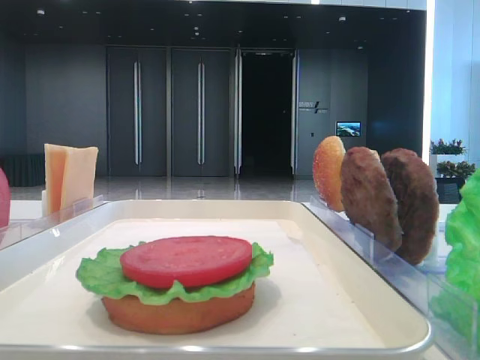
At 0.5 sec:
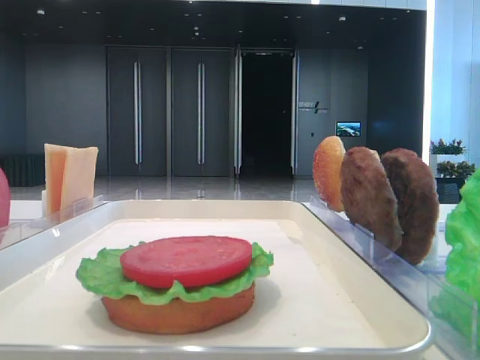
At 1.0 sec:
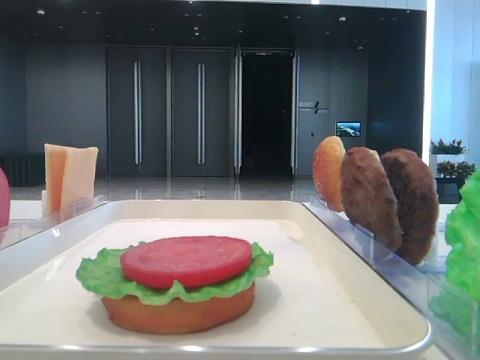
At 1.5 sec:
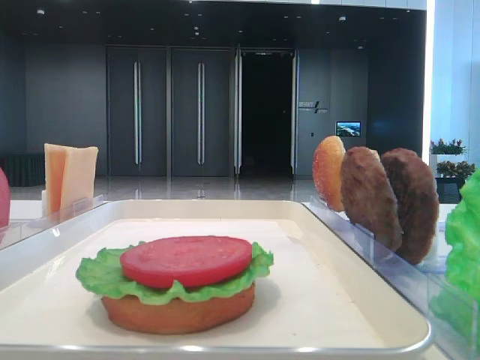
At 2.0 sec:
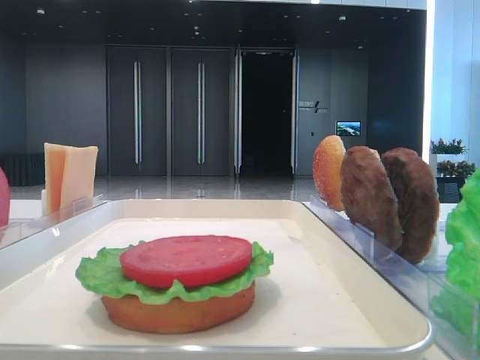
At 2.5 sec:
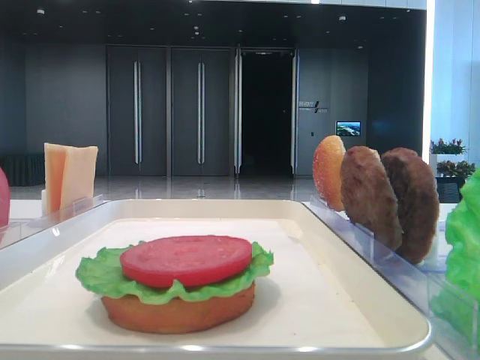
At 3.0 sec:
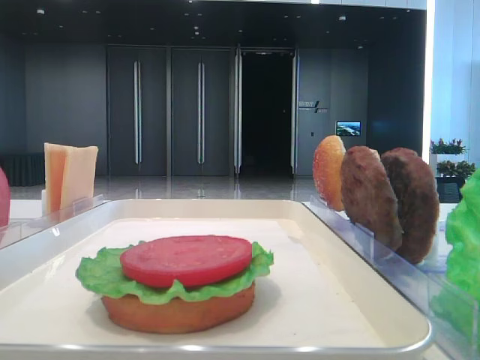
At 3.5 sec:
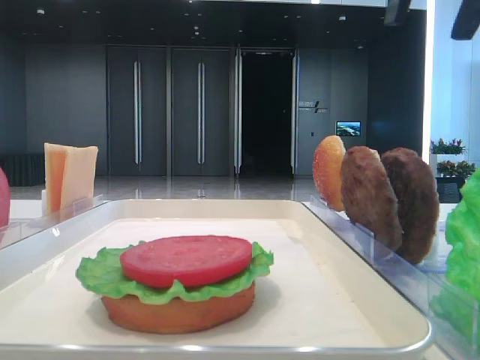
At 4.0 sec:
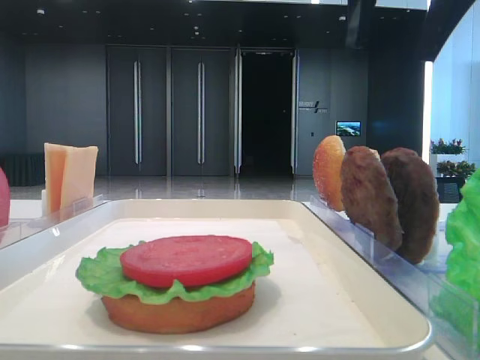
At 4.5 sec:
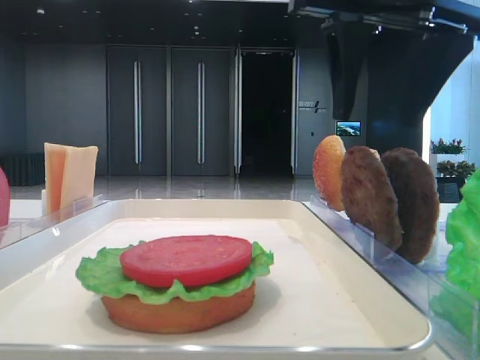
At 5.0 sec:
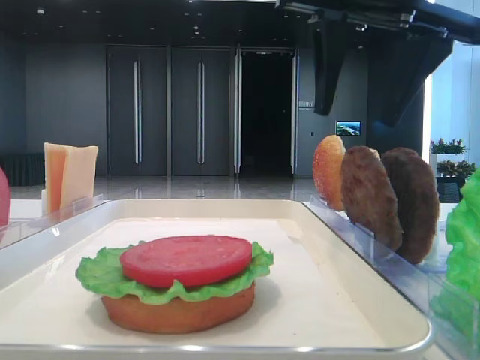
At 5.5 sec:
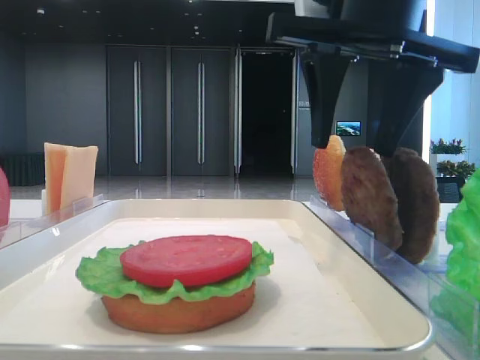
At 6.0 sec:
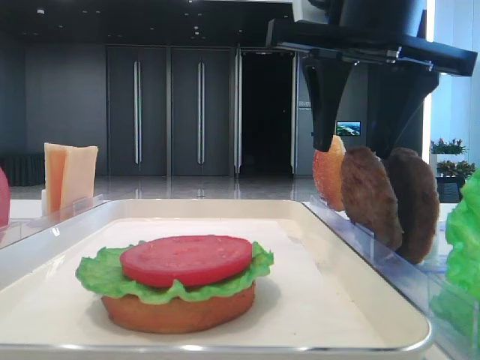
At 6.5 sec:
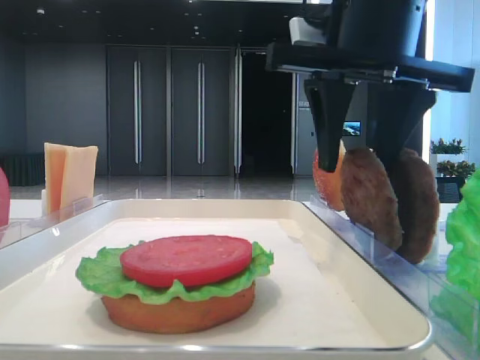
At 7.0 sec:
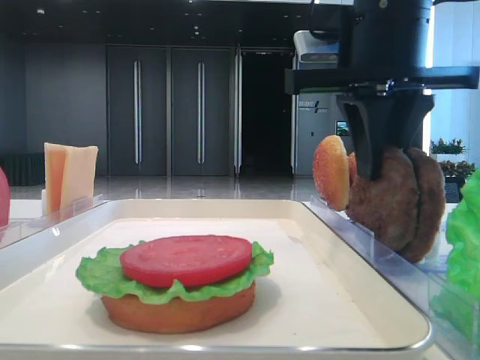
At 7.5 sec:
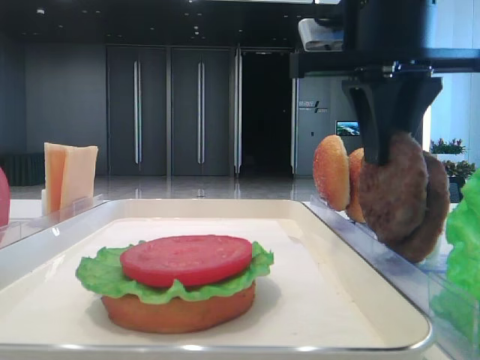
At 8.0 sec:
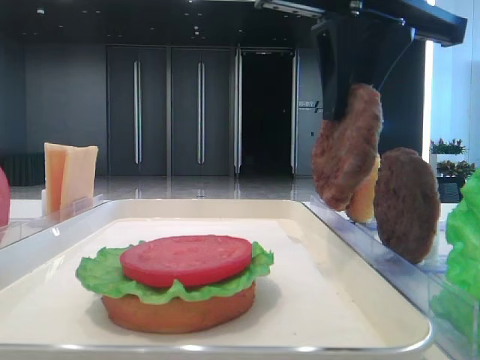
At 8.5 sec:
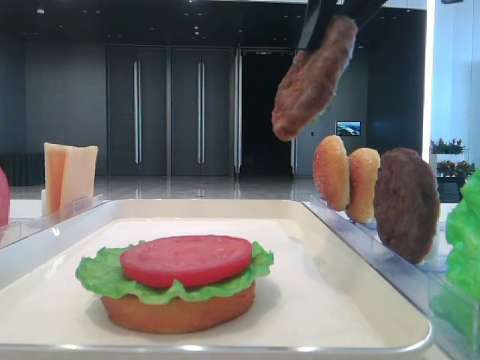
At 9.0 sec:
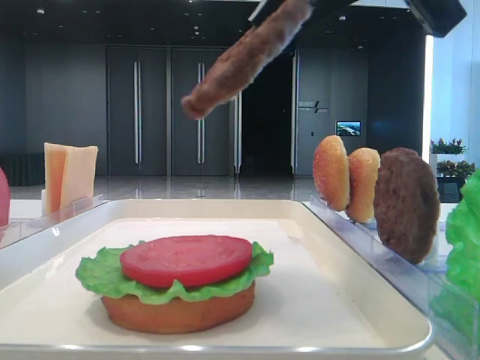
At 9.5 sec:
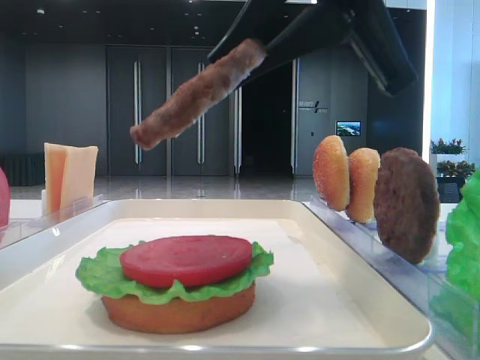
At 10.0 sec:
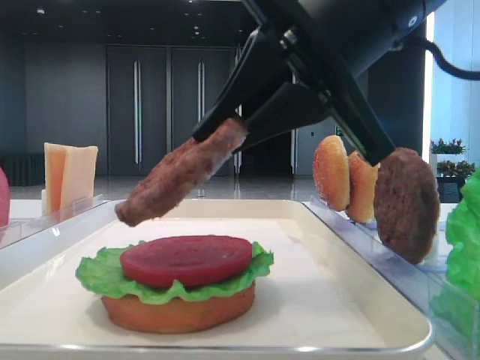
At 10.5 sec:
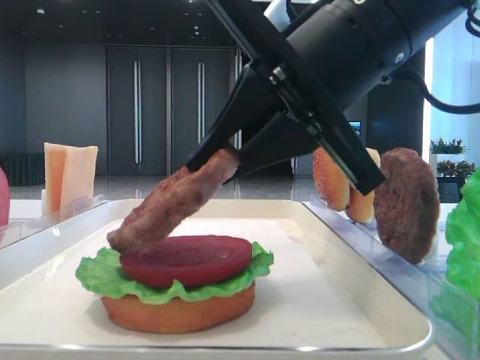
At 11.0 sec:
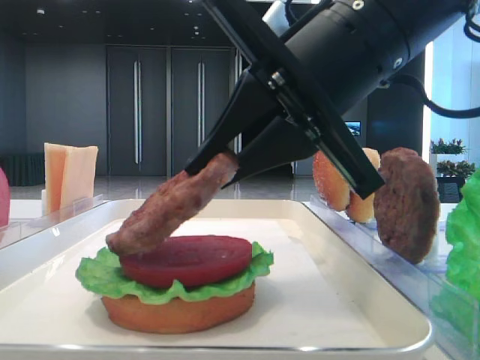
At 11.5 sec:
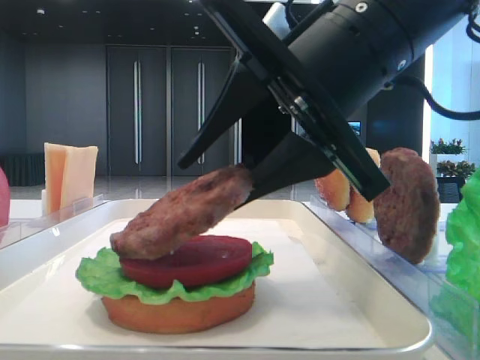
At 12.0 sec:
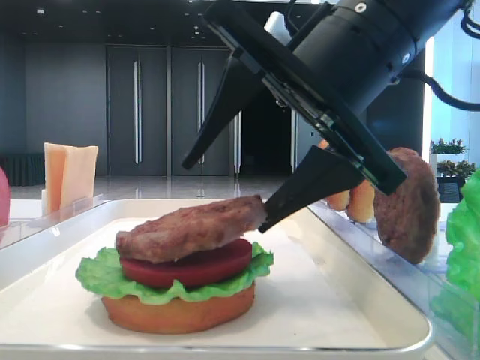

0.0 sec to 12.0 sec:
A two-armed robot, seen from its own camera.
Step, 0.0 sec to 7.0 sec: Grab the patty with the right hand.
2.0 sec to 4.0 sec: The right gripper moves to the left, approximately 15 cm.
4.0 sec to 6.0 sec: The right gripper goes about 5 cm downward.
6.0 sec to 8.0 sec: The right gripper closes its fingers.
8.0 sec to 10.0 sec: The right gripper travels downward and backward by approximately 10 cm.
10.0 sec to 12.0 sec: The right gripper opens up.

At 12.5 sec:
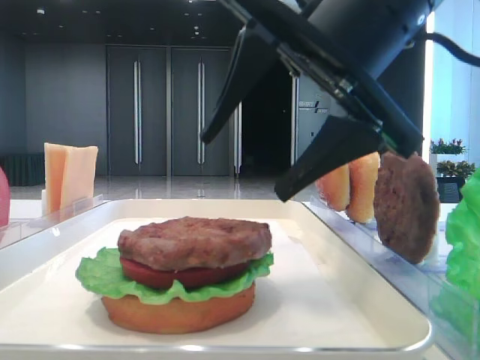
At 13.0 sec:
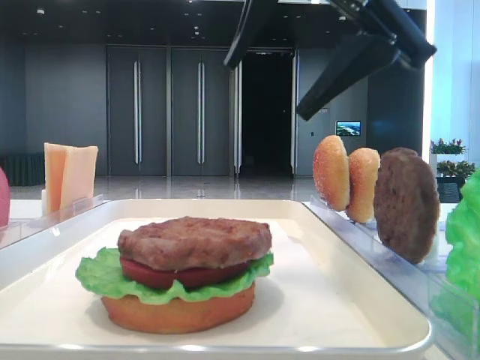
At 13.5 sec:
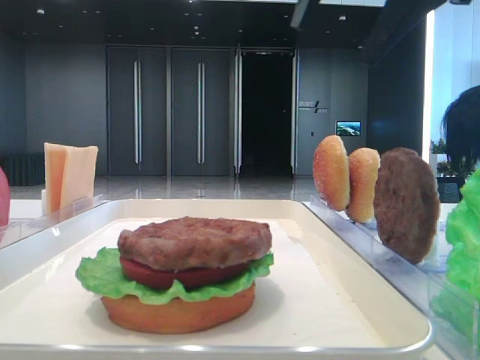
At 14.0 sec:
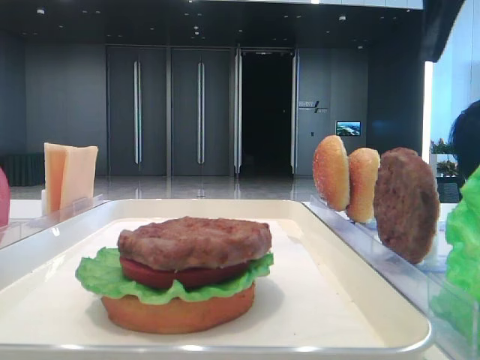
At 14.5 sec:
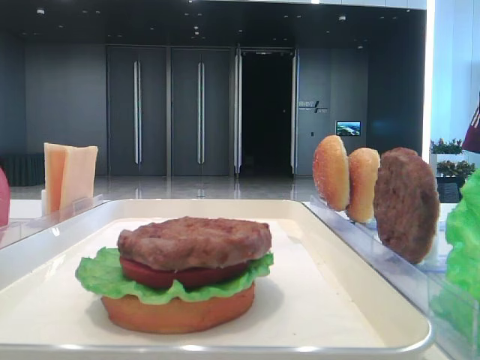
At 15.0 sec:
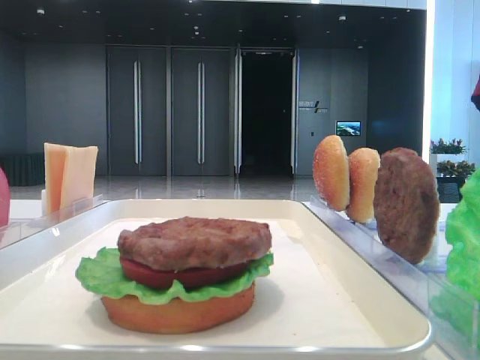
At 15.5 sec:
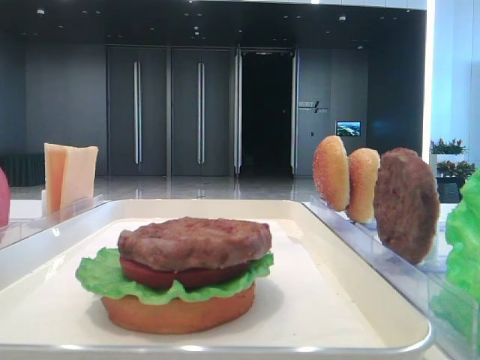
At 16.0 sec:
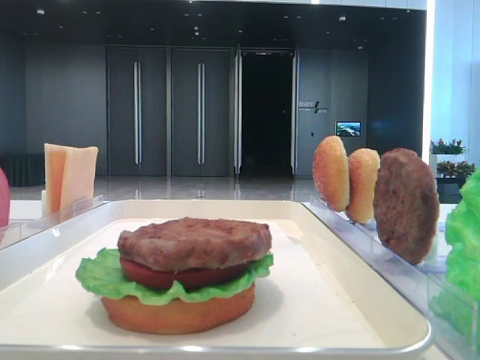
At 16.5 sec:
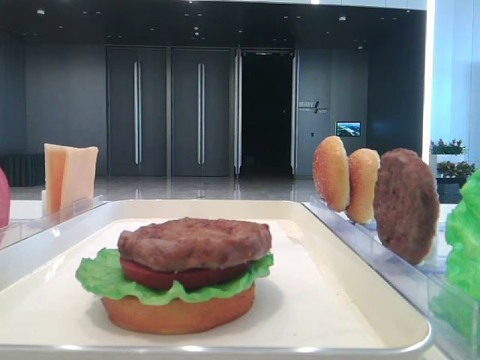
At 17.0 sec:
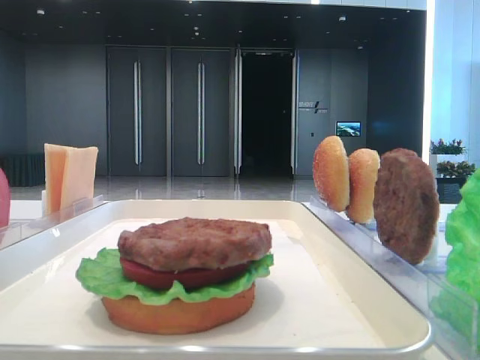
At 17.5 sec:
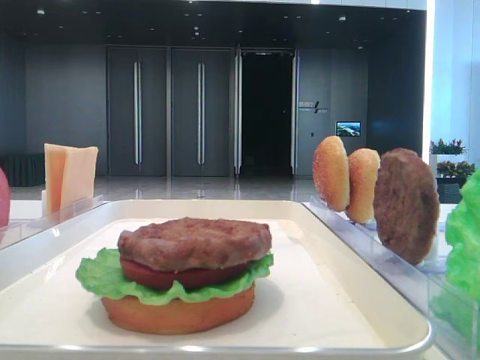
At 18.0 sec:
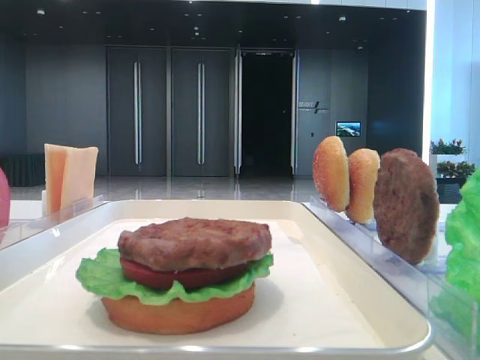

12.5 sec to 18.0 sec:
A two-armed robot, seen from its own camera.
12.5 sec to 14.5 sec: The right gripper shifts some 20 cm to the right and upward.
14.5 sec to 16.0 sec: The right gripper heads backward, covering approximately 25 cm.
